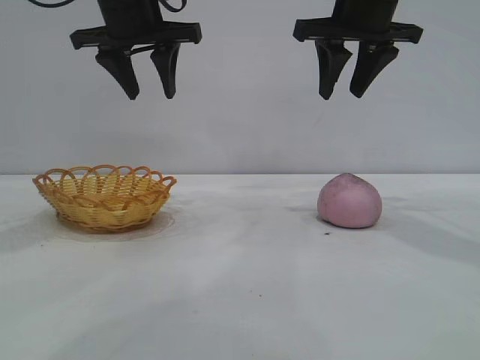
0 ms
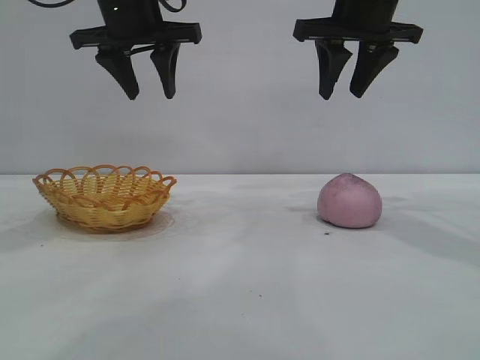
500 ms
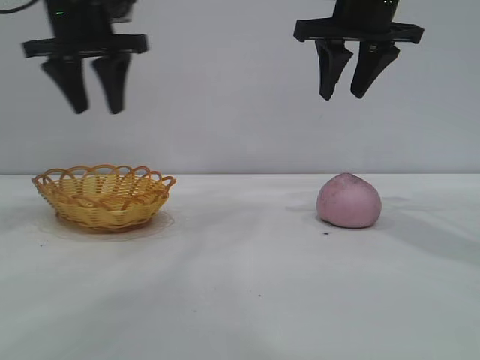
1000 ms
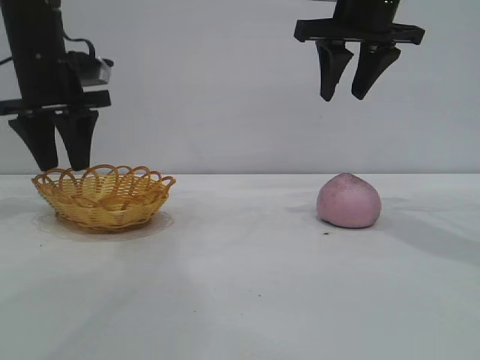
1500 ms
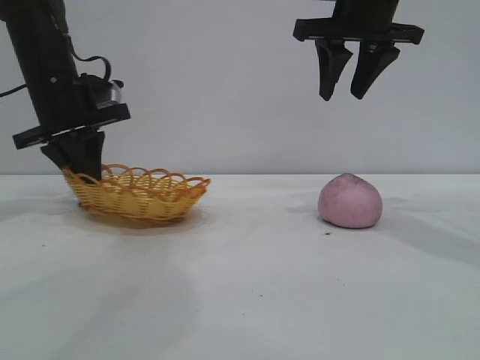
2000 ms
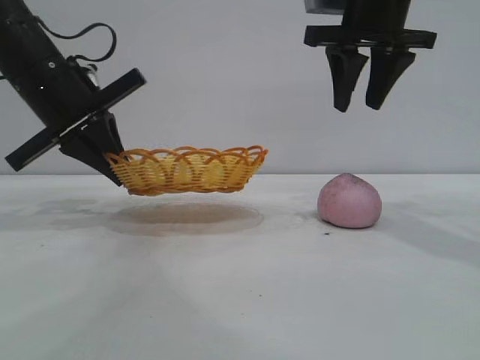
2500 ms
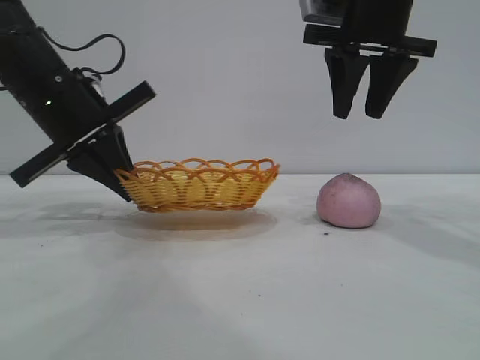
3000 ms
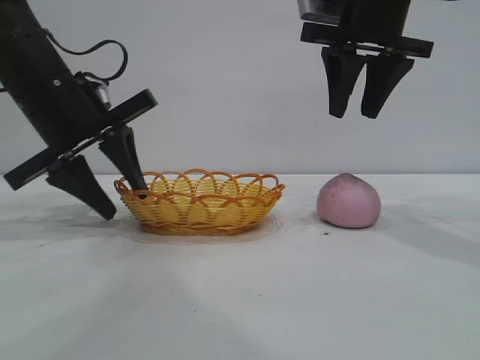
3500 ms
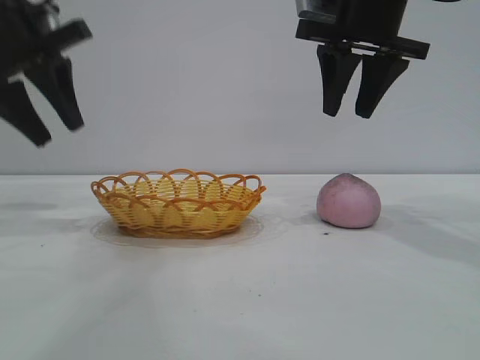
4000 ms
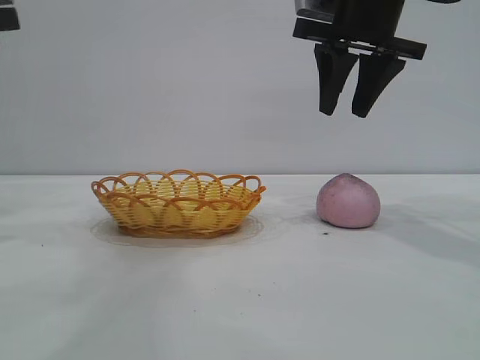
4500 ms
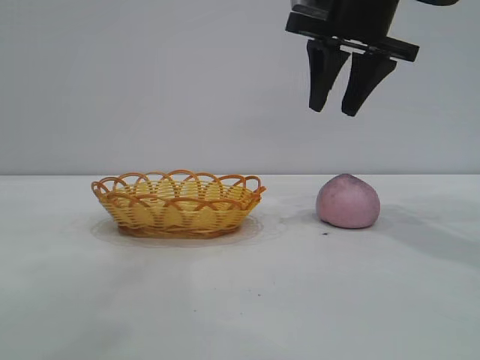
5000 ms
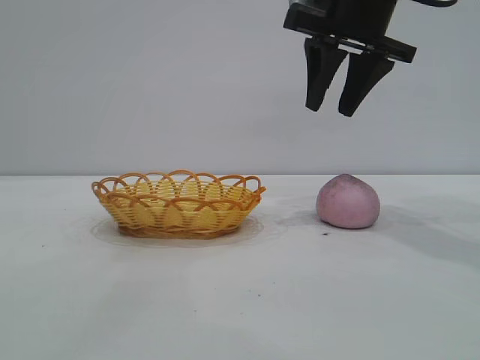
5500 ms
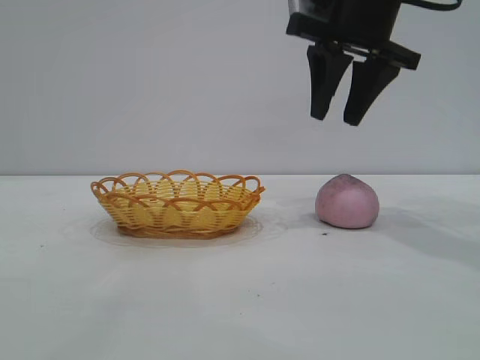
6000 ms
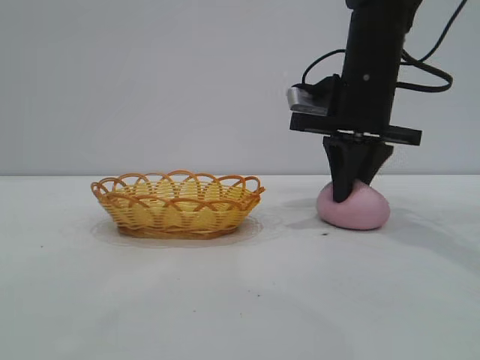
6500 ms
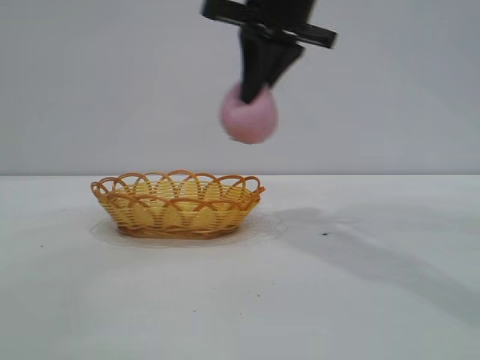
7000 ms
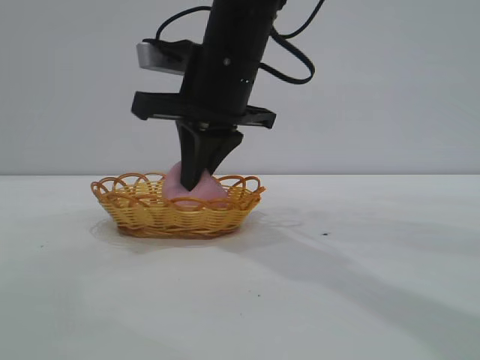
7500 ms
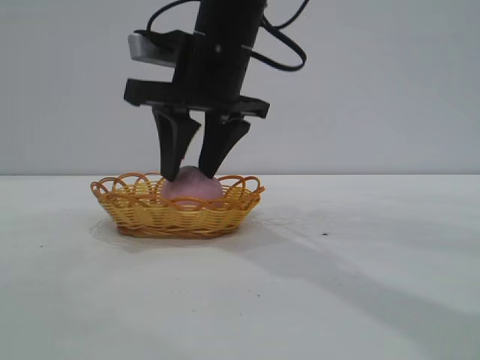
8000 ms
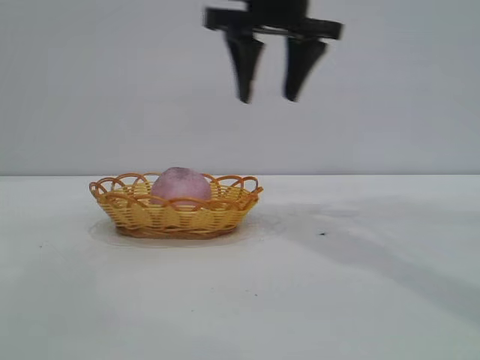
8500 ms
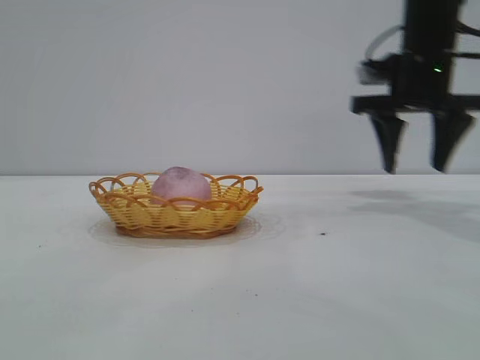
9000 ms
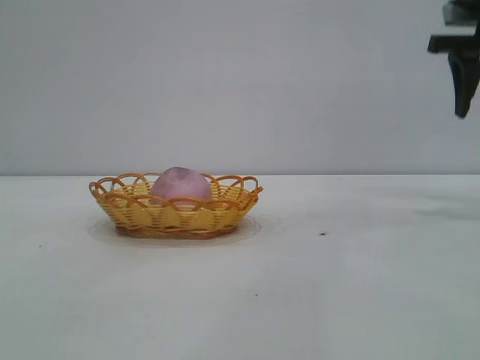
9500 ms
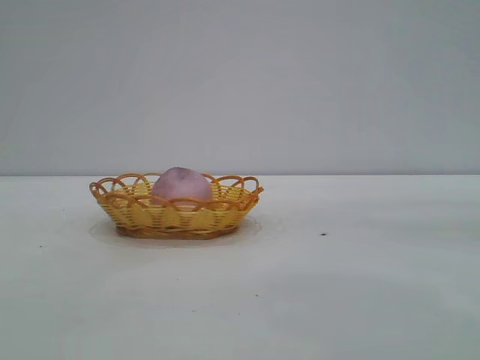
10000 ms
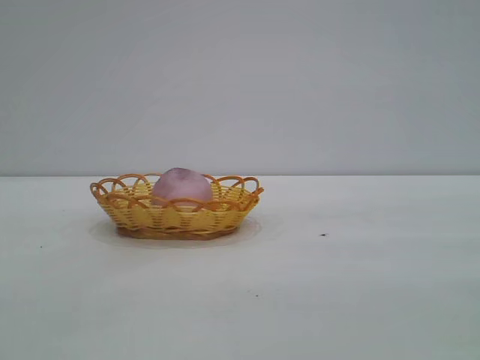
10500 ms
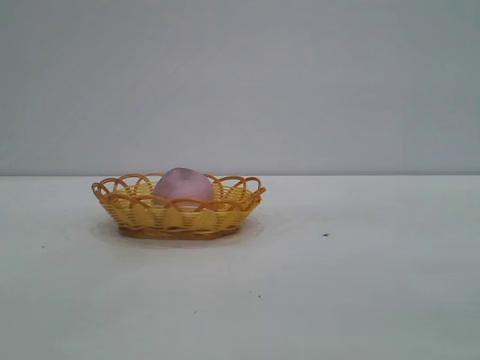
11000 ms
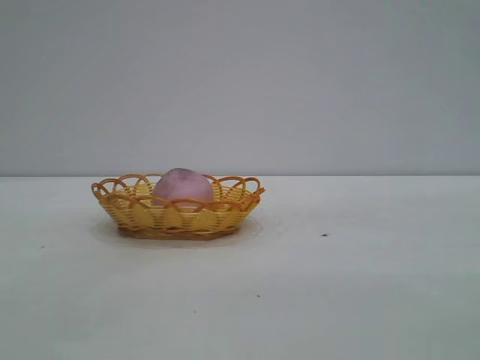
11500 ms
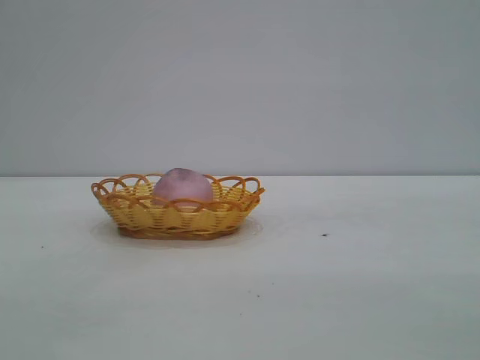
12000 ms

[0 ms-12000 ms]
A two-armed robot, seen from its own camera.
Task of the whole recording: pick up the peach and put it into the basket.
Step, 0 ms to 3500 ms: Move the basket to the center of view.
Step, 4000 ms to 6500 ms: Pick up the peach.
Step, 7000 ms to 8000 ms: place the peach into the basket.
